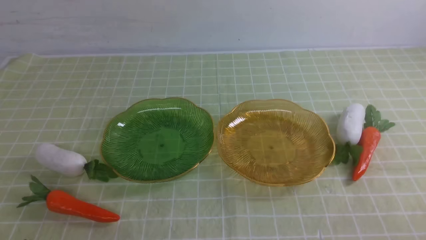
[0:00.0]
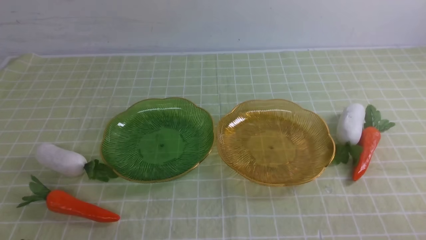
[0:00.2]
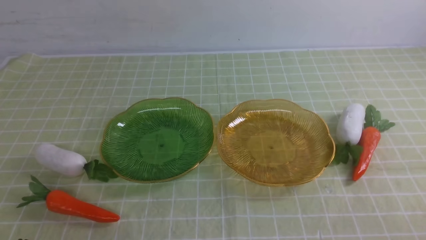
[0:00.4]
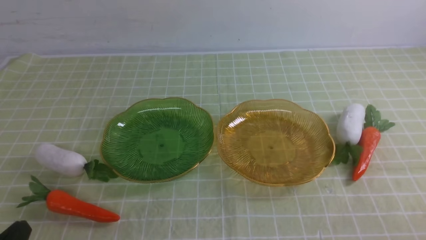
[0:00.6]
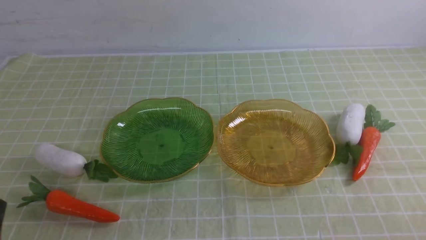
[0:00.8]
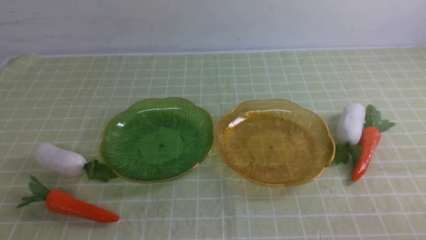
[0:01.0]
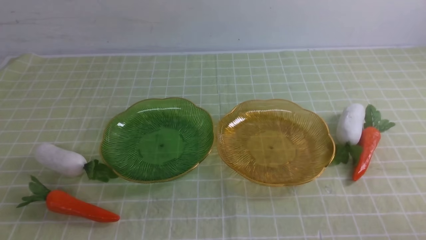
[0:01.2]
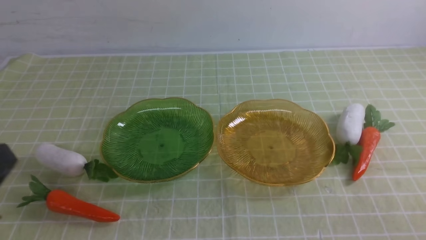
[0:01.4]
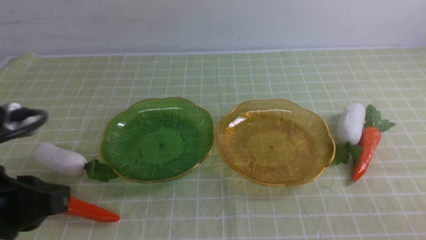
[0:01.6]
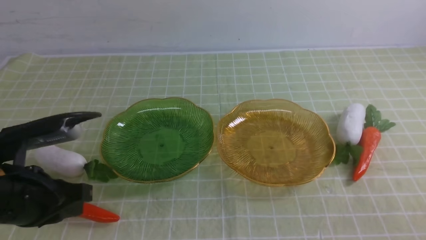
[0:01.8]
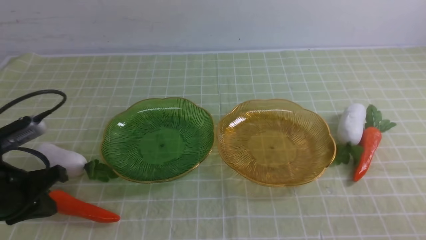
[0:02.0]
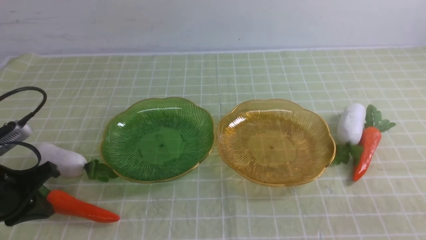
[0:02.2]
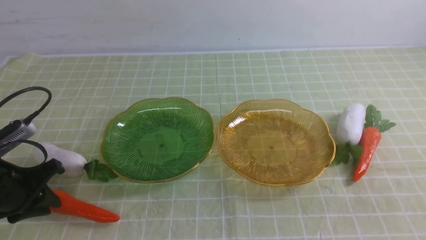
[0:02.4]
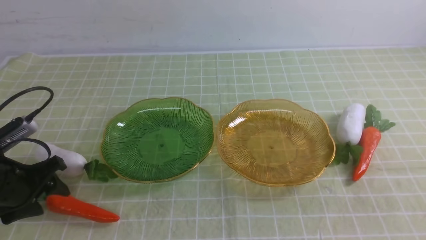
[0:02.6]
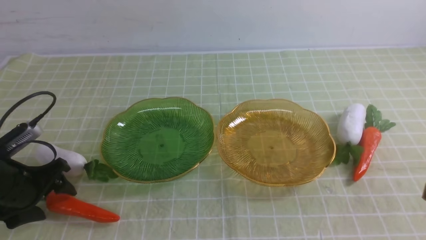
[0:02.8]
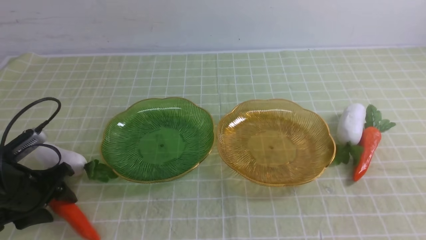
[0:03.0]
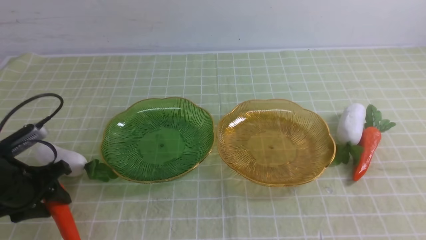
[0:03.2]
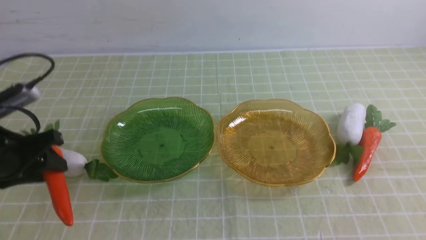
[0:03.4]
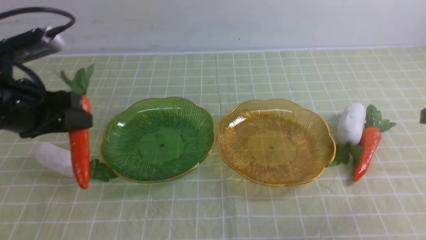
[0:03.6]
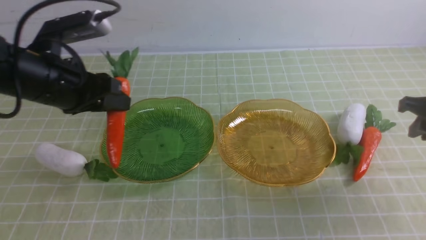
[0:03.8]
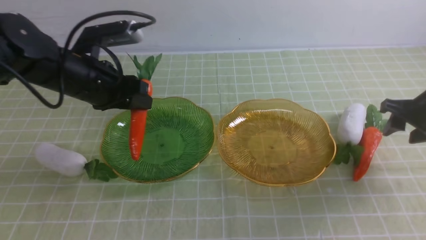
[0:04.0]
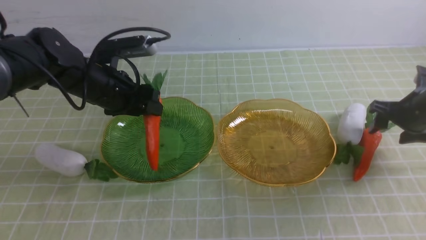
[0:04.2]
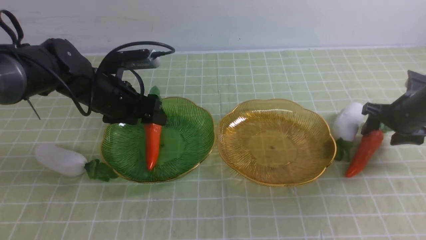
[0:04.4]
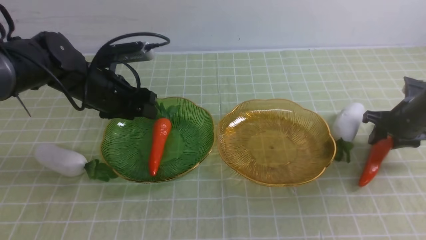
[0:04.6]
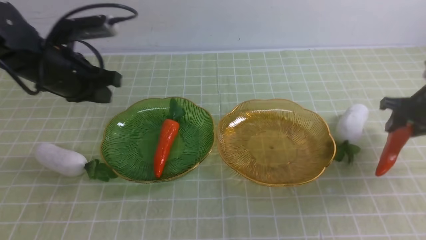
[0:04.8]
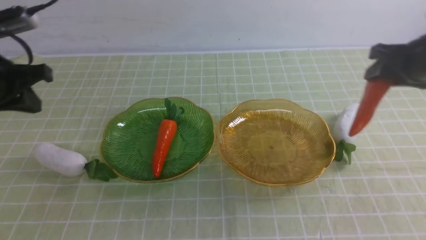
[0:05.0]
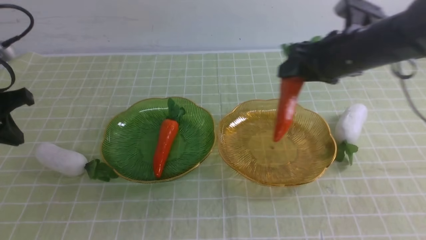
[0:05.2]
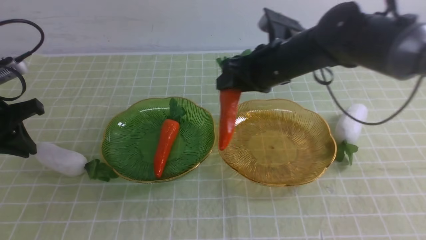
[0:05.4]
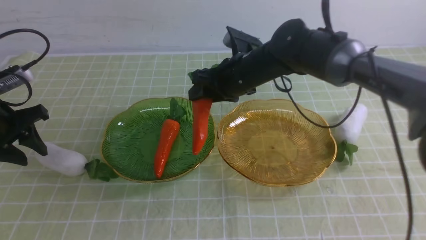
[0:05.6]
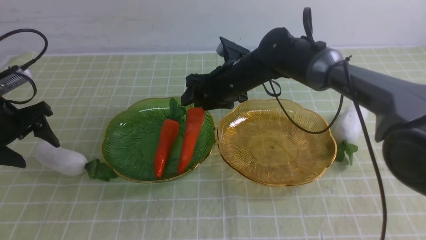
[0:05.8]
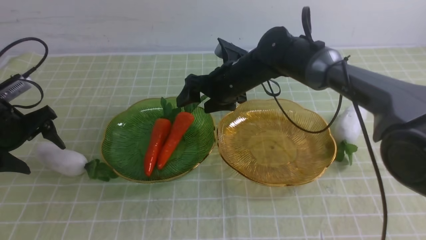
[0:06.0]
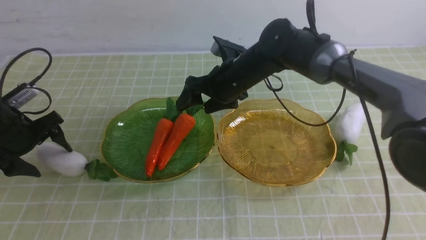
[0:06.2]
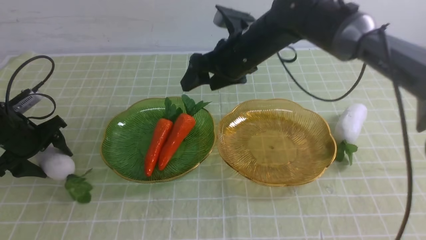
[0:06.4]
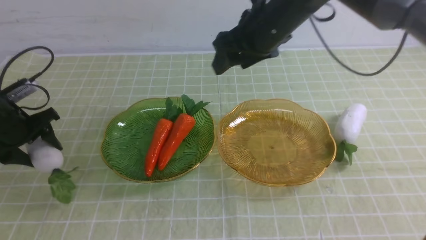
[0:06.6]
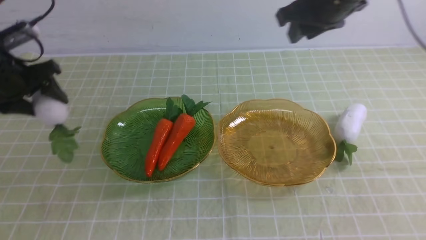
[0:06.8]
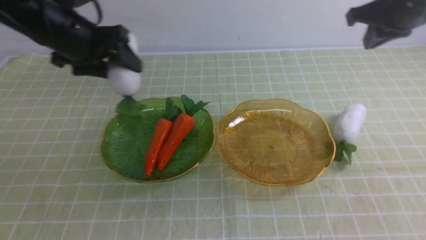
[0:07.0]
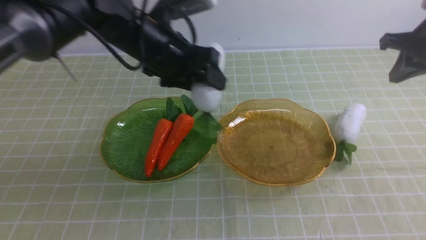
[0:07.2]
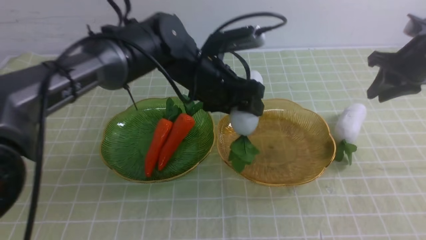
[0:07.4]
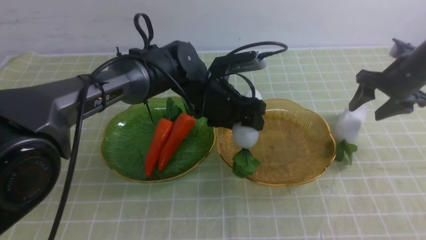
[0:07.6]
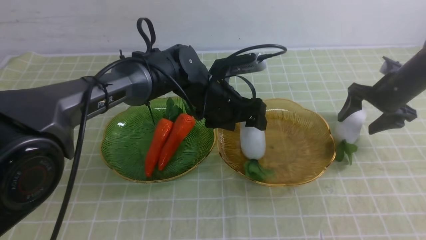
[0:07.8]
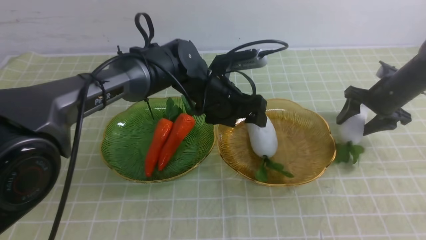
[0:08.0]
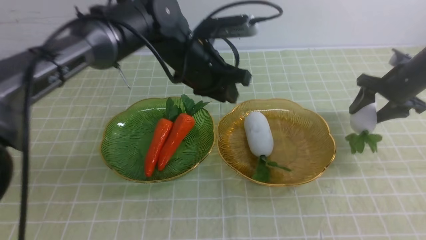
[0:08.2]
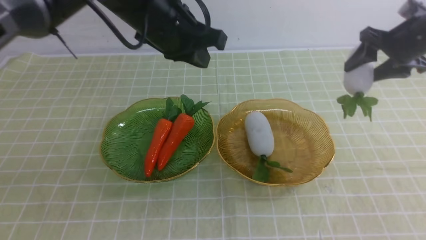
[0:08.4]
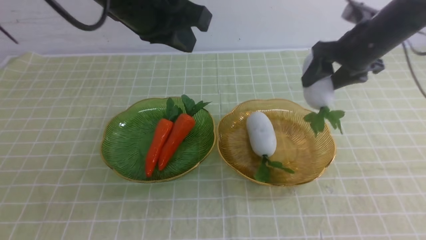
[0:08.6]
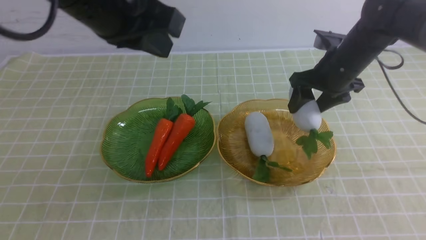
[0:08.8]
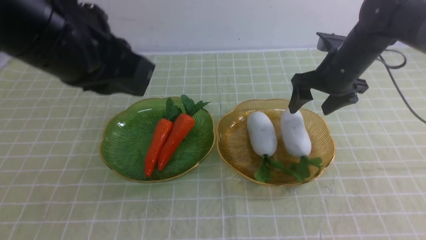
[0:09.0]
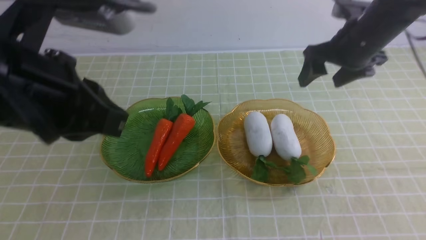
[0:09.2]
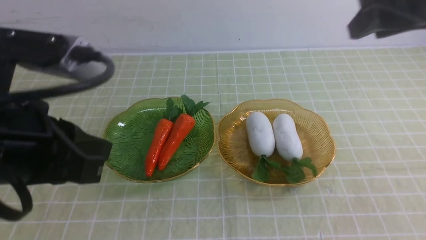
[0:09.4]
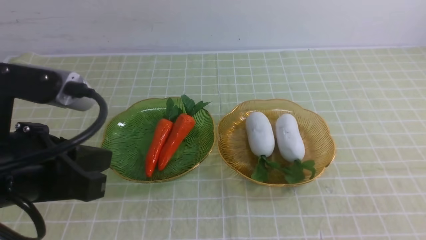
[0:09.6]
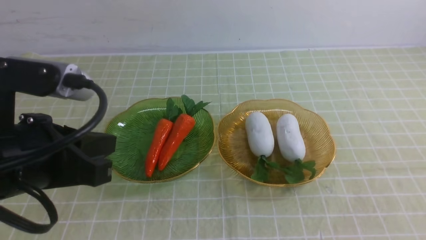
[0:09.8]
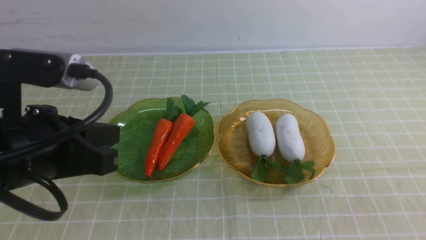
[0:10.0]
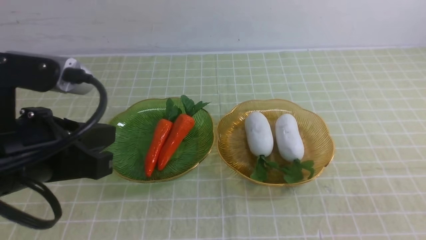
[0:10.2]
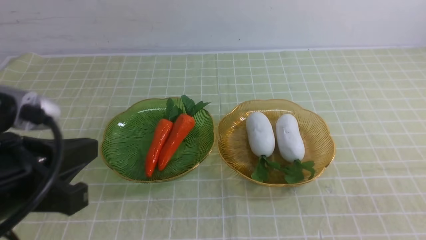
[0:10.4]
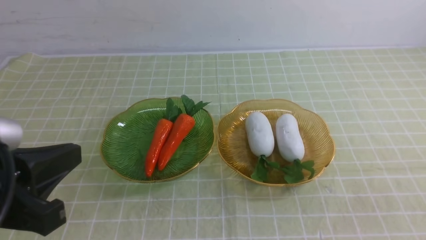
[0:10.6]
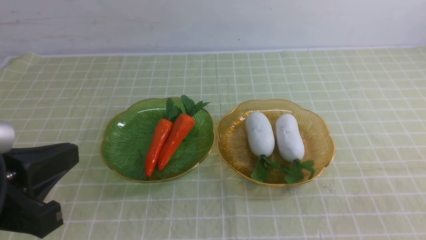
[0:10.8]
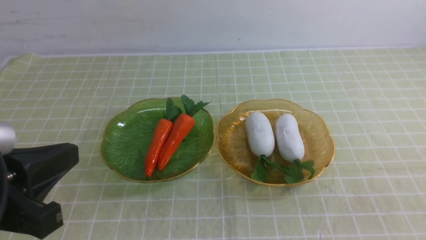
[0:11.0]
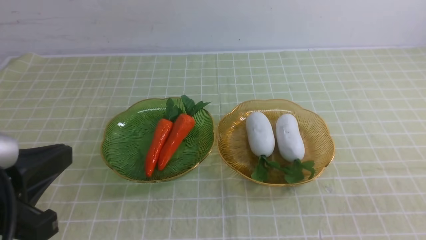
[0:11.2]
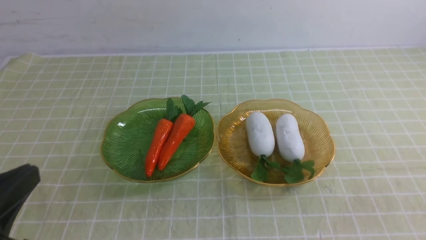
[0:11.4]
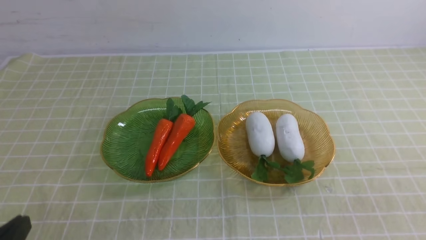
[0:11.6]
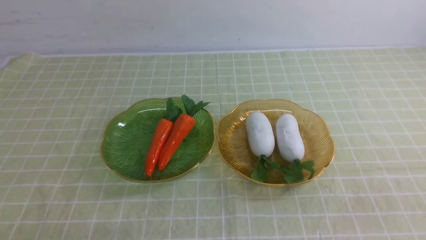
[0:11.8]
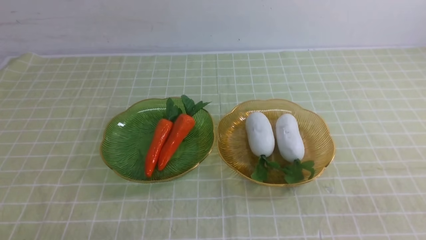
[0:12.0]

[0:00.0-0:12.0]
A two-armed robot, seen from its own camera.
Step, 0:00.0 to 0:04.6: use the left arm to grab a carrot and put it into the left plate.
Step, 0:04.8 to 0:06.4: use the right arm to grab a carrot and put it into the left plate.
Step, 0:06.6 to 0:08.0: use the left arm to grab a radish and put it into the right plate.
Step, 0:08.2 to 0:09.0: use the right arm to grab a radish and put it into the right plate.
0:00.0 to 0:01.6: The left gripper moves upward and forward, about 15 cm.
0:01.6 to 0:03.0: The left gripper moves downward, forward and to the left, approximately 20 cm, and opens.
0:03.0 to 0:04.4: The left gripper heads forward, to the right and upward, covering roughly 20 cm, while the right gripper is displaced forward and downward by roughly 30 cm, and opens up.
0:04.4 to 0:06.0: The left gripper moves to the left, some 15 cm, and closes, then reopens. Meanwhile the right gripper goes approximately 30 cm to the left.
0:06.0 to 0:07.6: Both grippers travel together to the right, approximately 30 cm. The right gripper closes, then reopens.
0:07.6 to 0:09.0: The right gripper goes approximately 15 cm to the left and upward. The left gripper shifts about 30 cm upward, backward and to the left, and closes up.
0:09.0 to 0:10.4: The left gripper shifts about 15 cm backward, downward and to the left, while the right gripper travels backward by roughly 40 cm, and closes.
0:10.4 to 0:12.0: The left gripper shifts about 20 cm downward and backward.

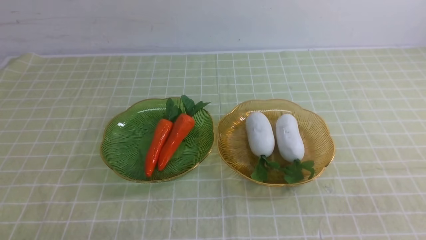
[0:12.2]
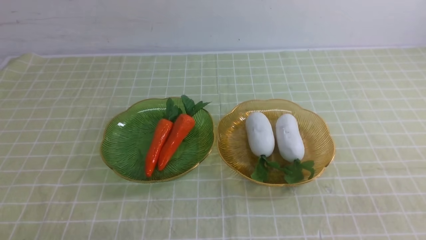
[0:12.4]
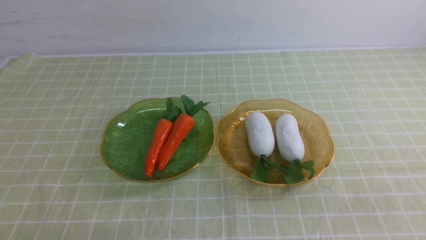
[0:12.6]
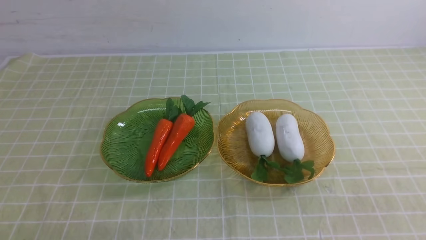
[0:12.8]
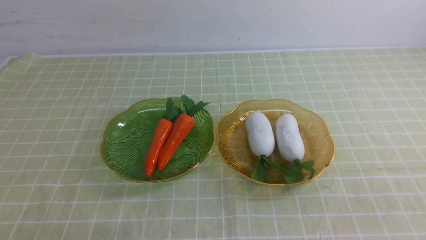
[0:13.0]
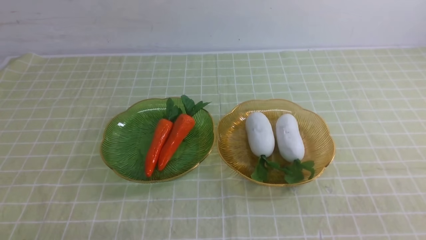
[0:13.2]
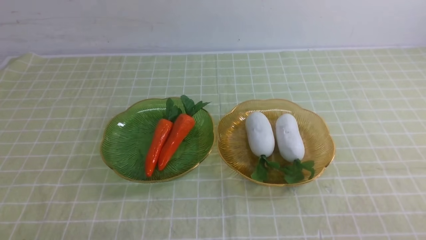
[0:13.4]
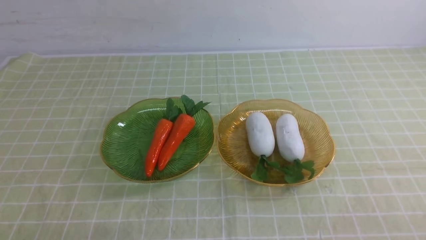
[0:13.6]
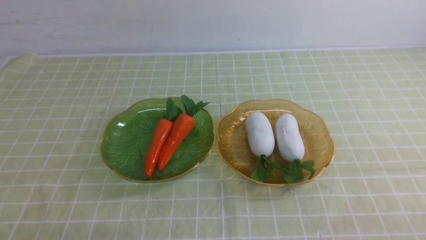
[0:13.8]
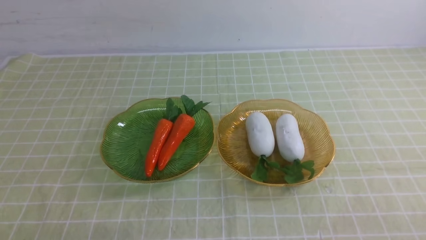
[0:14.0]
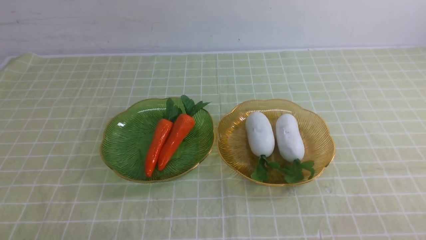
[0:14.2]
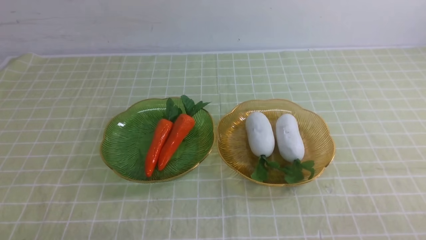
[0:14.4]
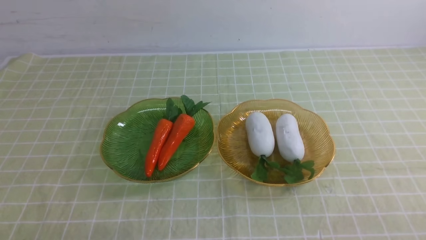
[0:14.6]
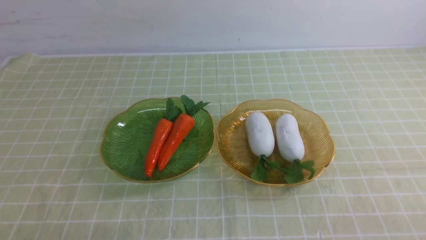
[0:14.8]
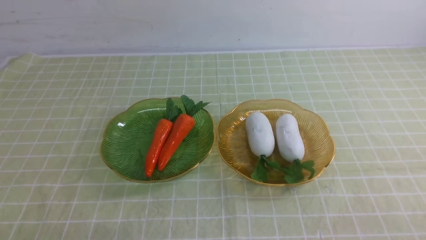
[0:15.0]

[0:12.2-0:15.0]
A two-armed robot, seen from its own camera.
0:13.6 to 0:15.0: Neither gripper changes place.
